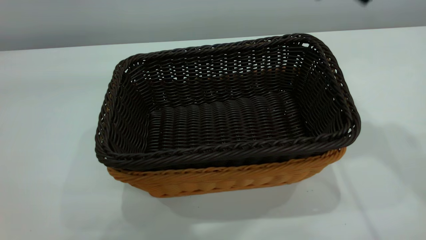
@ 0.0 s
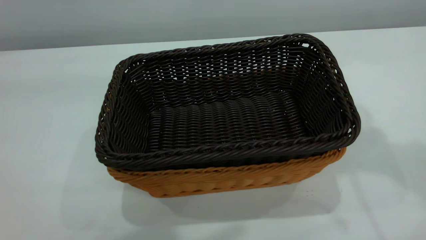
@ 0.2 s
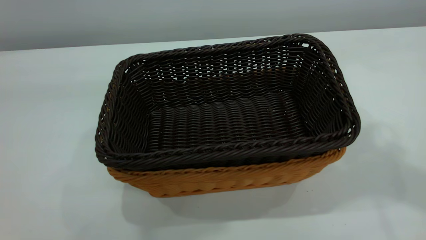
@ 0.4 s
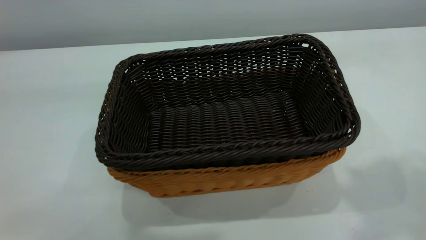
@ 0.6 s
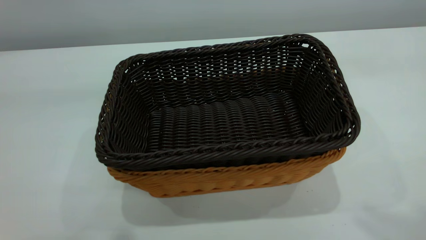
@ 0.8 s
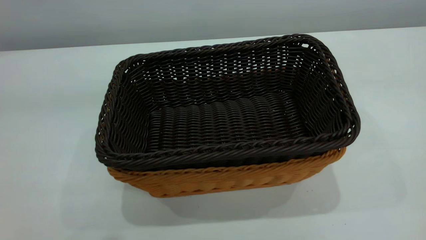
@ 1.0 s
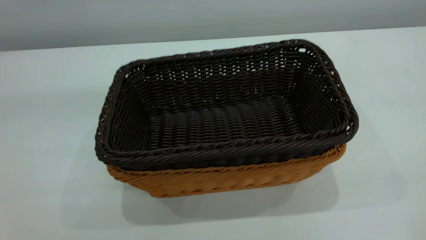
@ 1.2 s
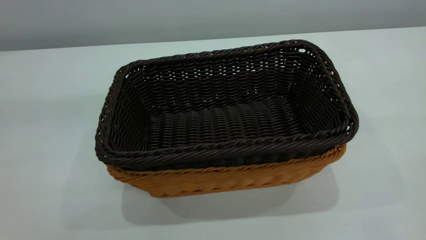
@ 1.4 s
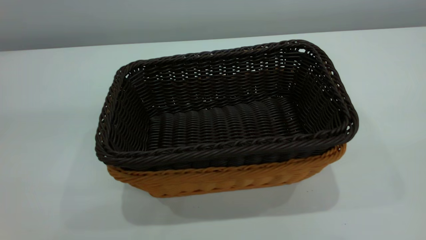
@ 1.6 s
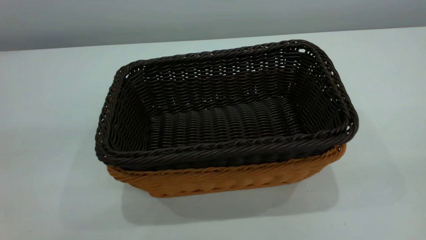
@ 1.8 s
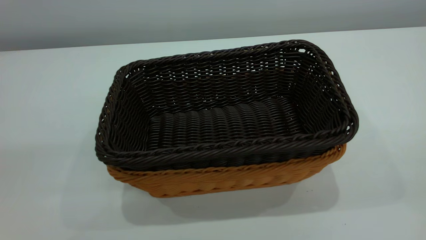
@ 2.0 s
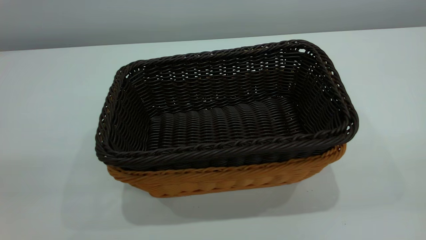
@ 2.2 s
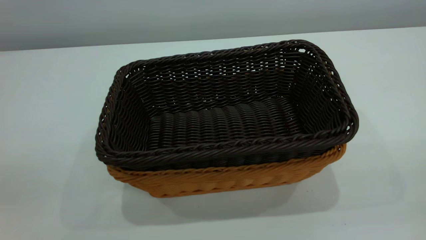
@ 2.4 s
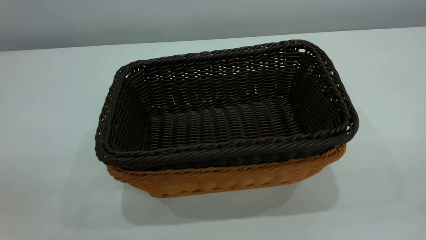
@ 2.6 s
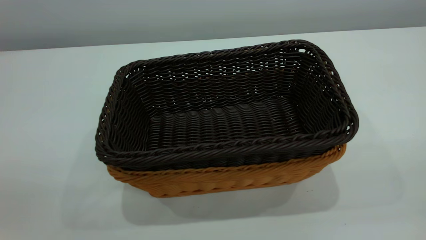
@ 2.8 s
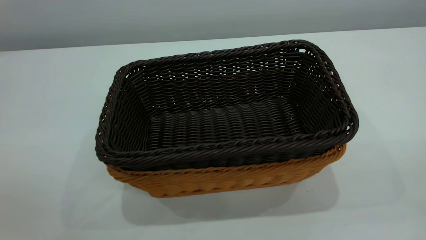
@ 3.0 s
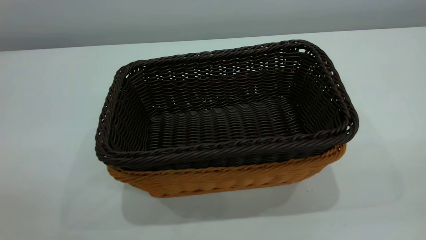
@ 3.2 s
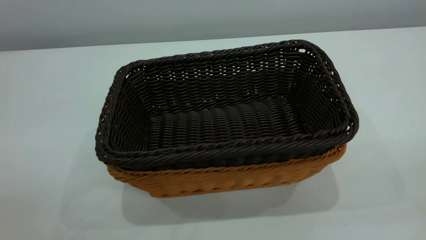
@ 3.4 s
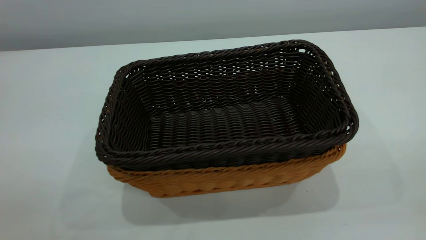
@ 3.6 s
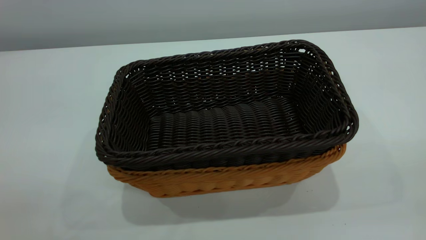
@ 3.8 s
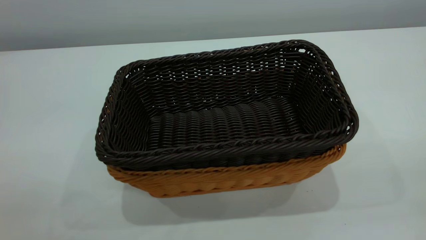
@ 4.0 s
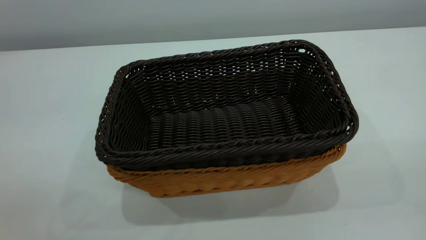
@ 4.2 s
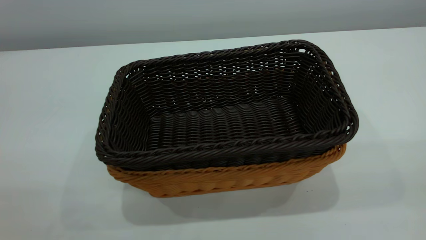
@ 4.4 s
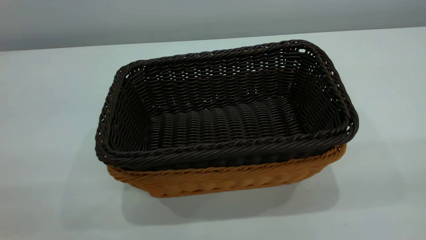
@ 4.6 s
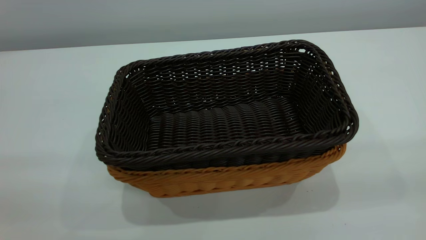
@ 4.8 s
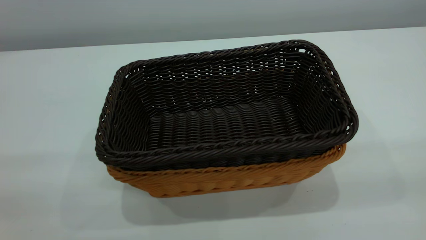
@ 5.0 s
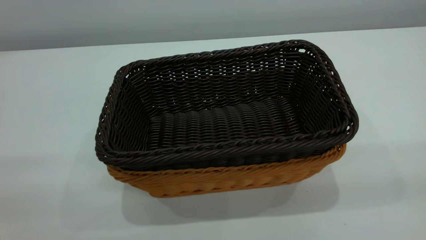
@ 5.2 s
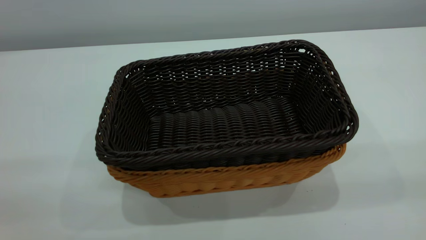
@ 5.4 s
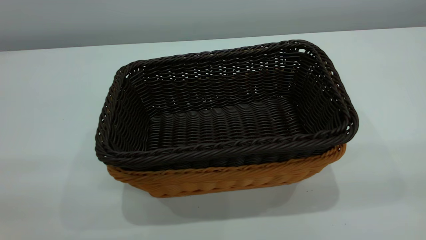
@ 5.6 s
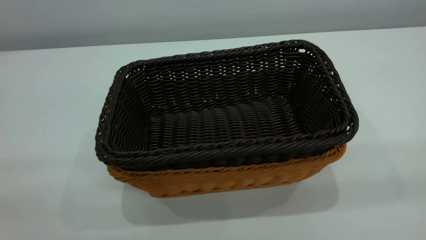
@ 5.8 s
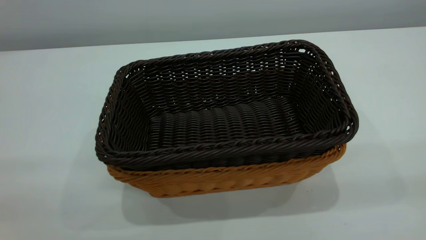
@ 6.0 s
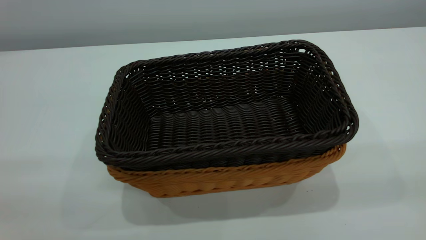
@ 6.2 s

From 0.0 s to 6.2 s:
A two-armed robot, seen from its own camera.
Task of the whole recording: the left gripper grasp the brown basket and place it in the center of the table, the right gripper grasp the black basket and place it inside the brown one.
From 0.0 s to 1.6 s: The right gripper moves backward, some 35 cm, and closes up, while the left gripper heads to the left and backward, covering about 15 cm, and closes up.

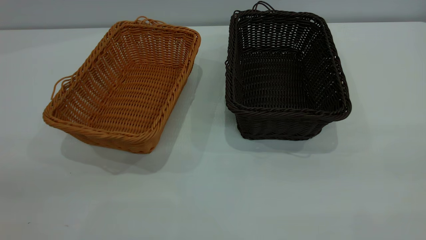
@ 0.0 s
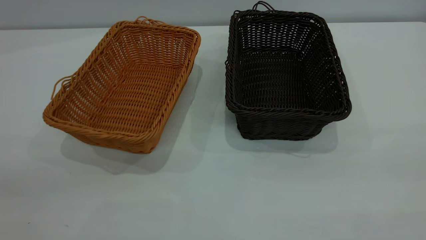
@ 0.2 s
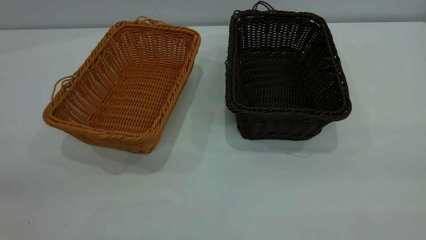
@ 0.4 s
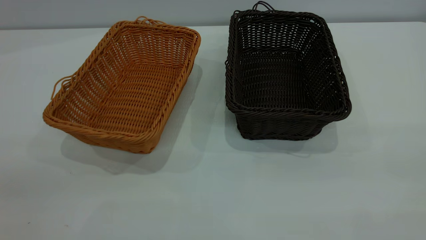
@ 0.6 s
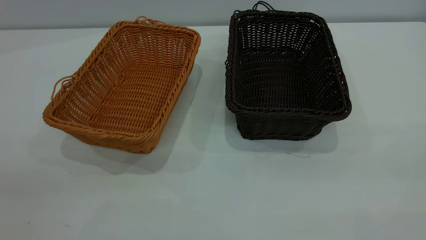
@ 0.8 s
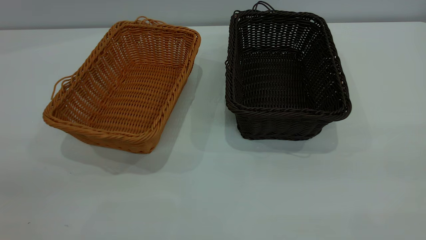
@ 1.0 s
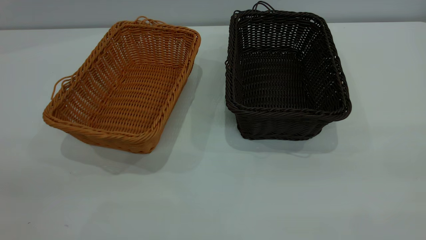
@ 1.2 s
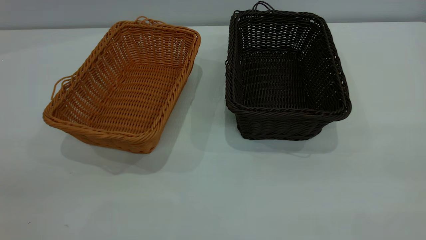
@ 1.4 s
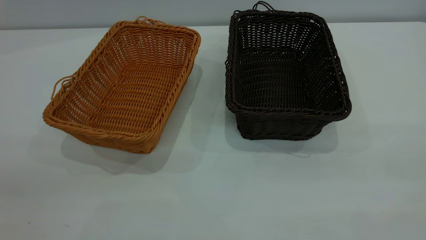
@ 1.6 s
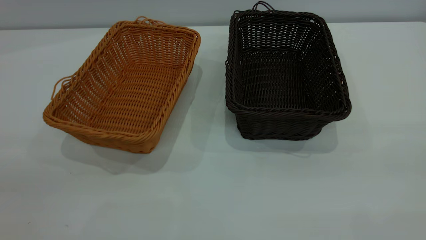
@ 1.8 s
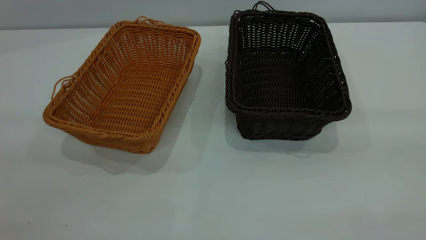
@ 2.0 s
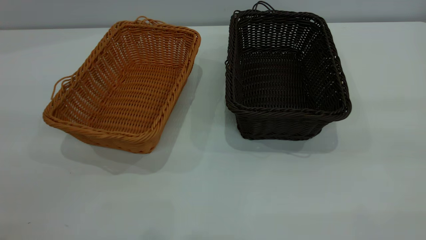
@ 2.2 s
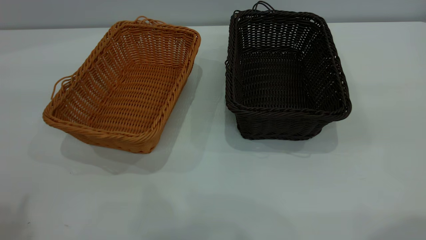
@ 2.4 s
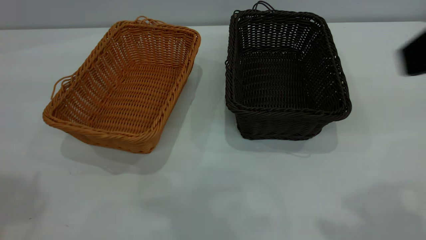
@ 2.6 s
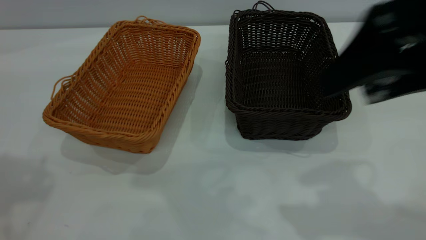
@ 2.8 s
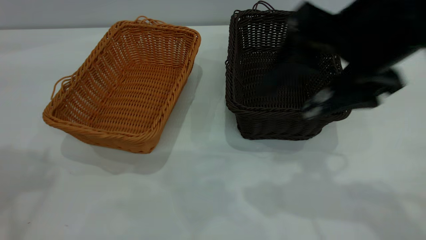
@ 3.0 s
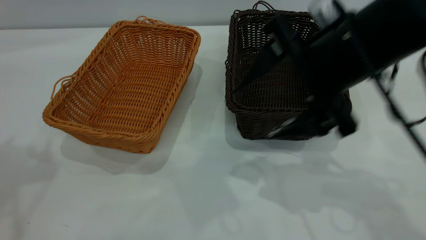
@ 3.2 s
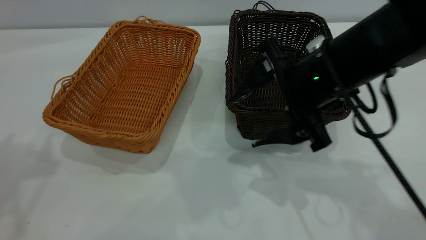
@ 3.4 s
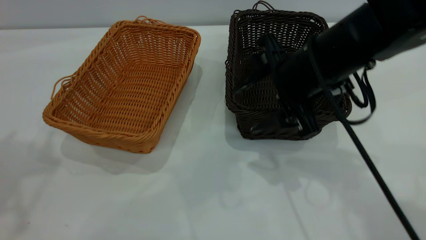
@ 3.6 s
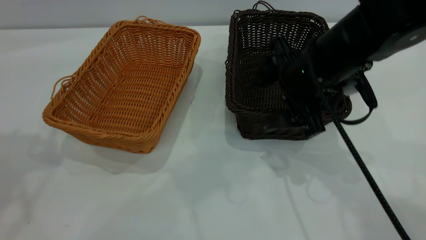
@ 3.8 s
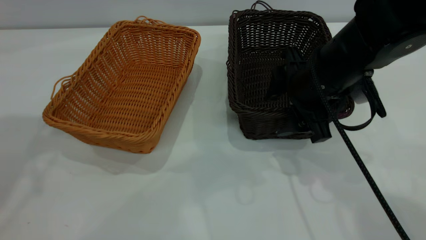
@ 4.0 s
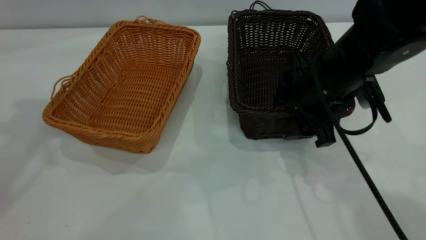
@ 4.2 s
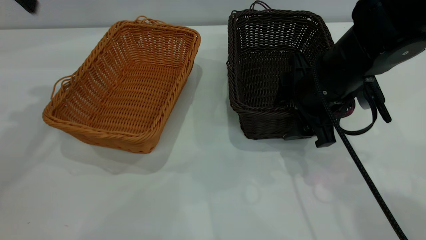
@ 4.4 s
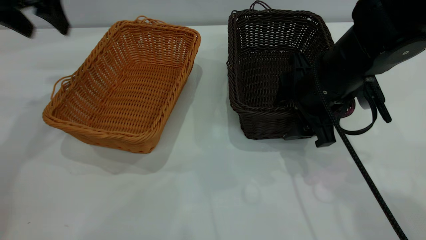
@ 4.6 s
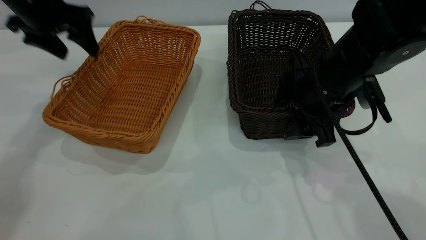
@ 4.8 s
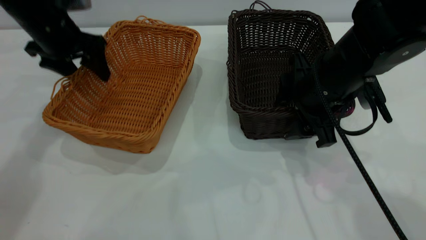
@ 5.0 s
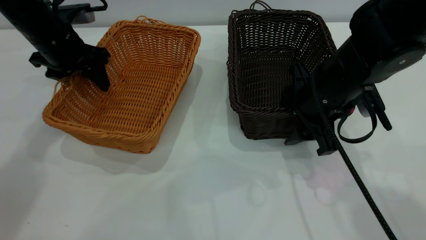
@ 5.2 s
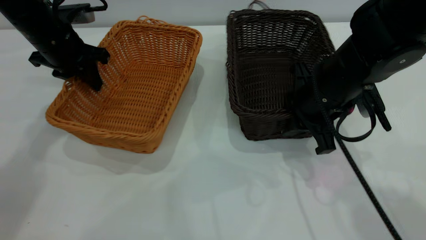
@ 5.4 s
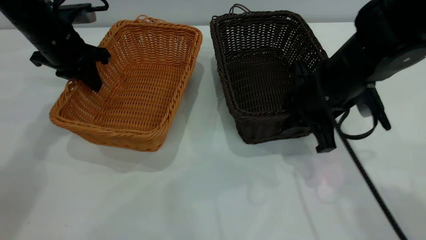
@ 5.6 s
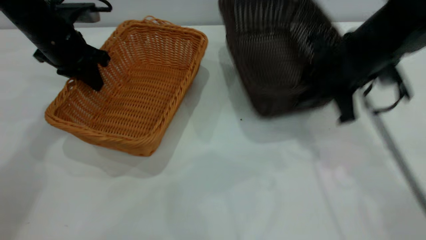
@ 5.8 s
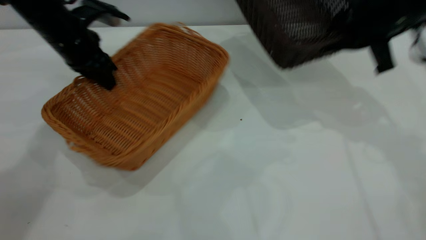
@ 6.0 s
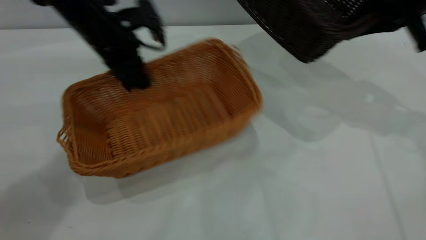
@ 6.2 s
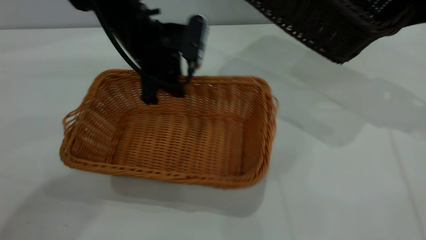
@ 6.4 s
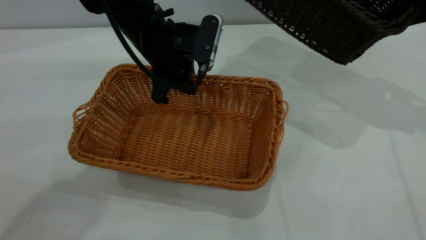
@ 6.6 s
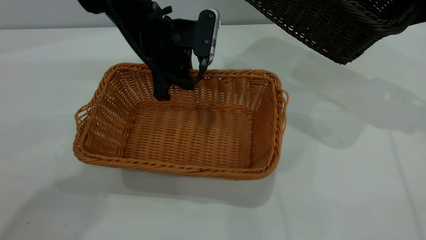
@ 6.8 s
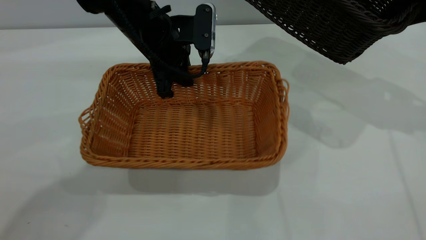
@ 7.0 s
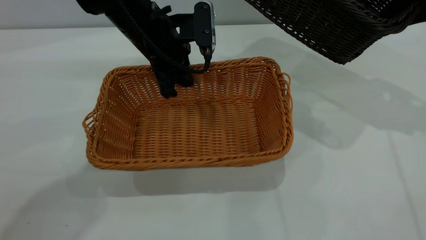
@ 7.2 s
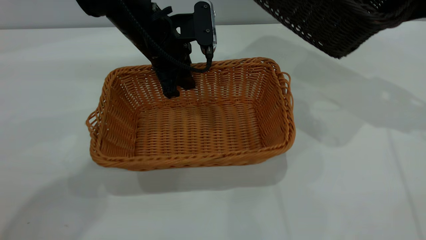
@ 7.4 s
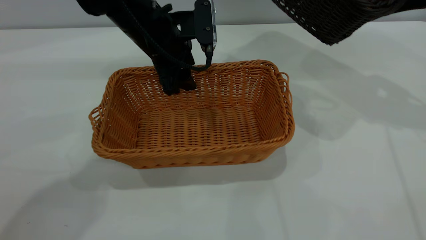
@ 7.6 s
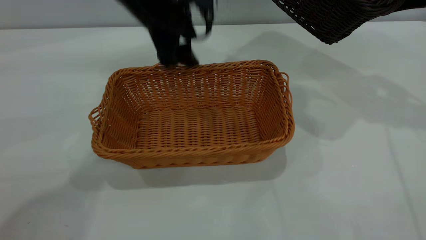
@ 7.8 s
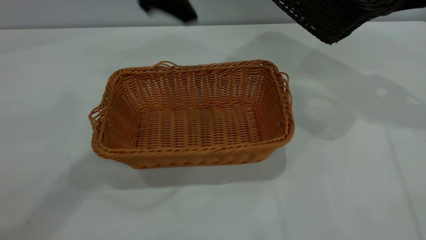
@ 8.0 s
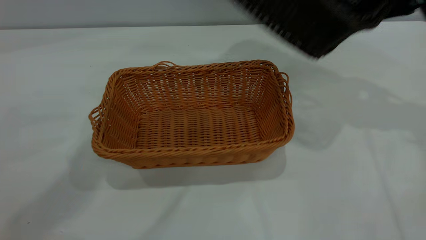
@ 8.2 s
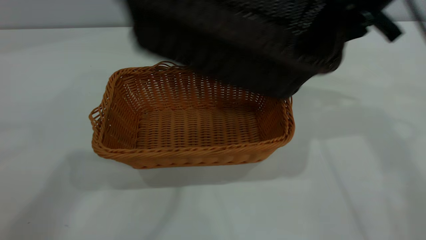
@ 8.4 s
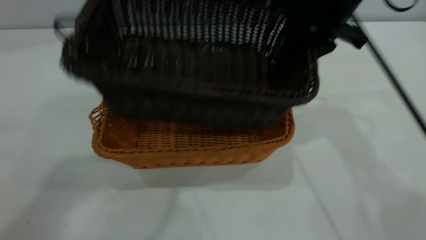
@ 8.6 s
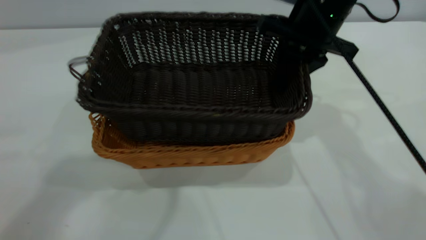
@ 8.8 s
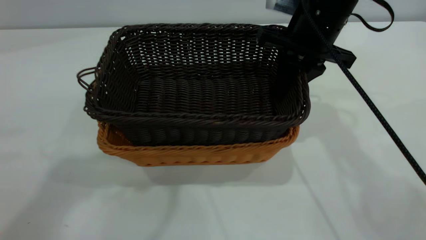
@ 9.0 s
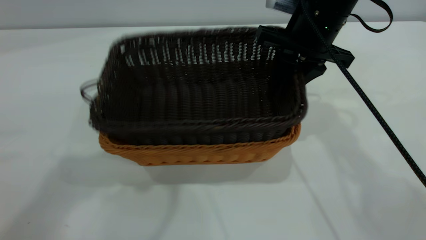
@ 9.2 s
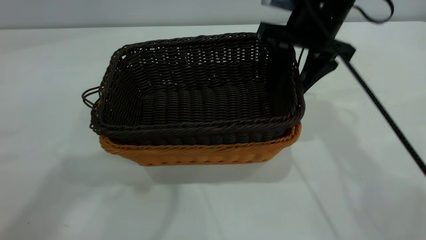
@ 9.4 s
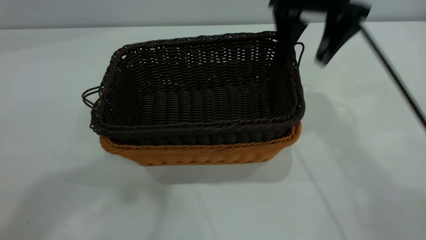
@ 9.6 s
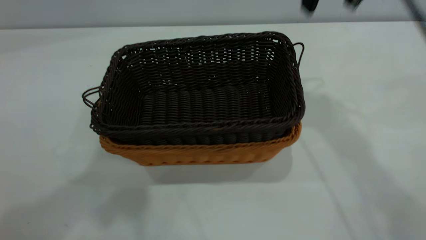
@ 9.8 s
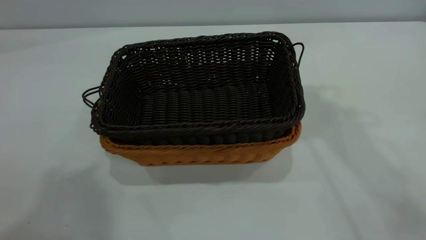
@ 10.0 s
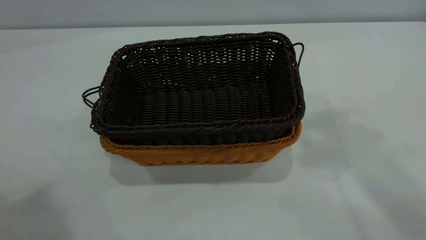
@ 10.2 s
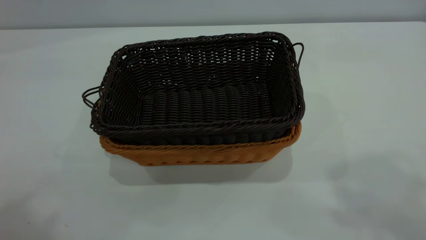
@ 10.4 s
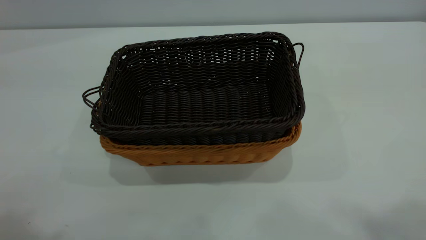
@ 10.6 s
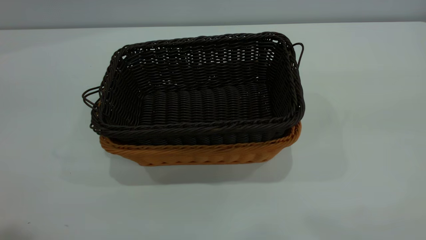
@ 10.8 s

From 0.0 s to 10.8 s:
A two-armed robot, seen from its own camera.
Task of the whole recording: the left gripper grasp the brown basket and place it in the center of the table, the right gripper grasp the black basket and place it inside the brown one.
Step, from 0.0 s to 5.6 s: Pick up the light basket with the right gripper.
Step, from 5.8 s to 7.8 s: Place the light-colored basket in the center.
Step, from 8.0 s to 9.6 s: Place the dark basket on top of the light basket.
From 0.0 s to 1.6 s: Both grippers stay put.
From 1.6 s to 3.0 s: The right gripper moves forward, to the left and downward, approximately 30 cm.
From 3.0 s to 4.6 s: The left gripper moves forward and downward, roughly 25 cm. Meanwhile the right gripper goes roughly 15 cm downward and forward.
From 4.6 s to 6.2 s: The right gripper heads to the right, upward and forward, covering approximately 20 cm, and closes. Meanwhile the left gripper heads to the right and downward, covering about 15 cm, and closes.
From 6.2 s to 7.8 s: The left gripper travels upward and to the right by about 10 cm, and opens its fingers.
From 7.8 s to 9.2 s: The right gripper heads to the left, covering some 20 cm, while the left gripper shifts approximately 25 cm upward and backward.
From 9.2 s to 10.8 s: The left gripper heads backward and to the left, covering approximately 25 cm; the right gripper travels backward, upward and to the right by about 40 cm, and opens up.
